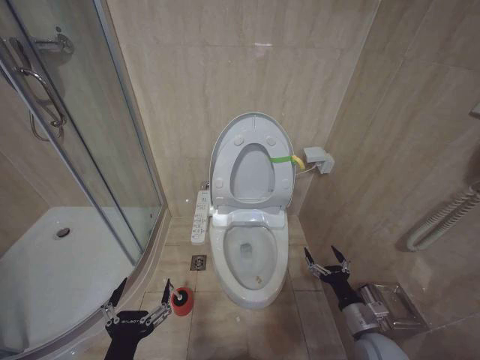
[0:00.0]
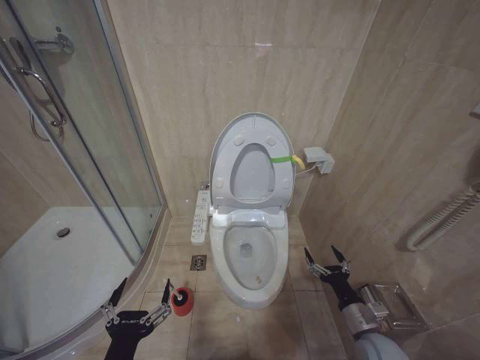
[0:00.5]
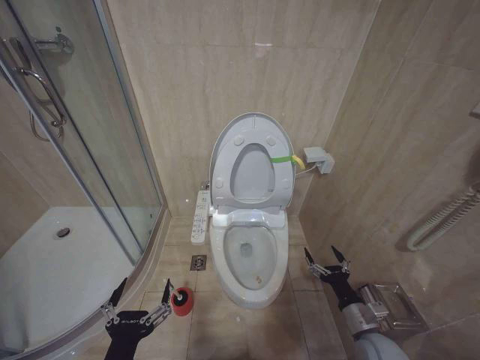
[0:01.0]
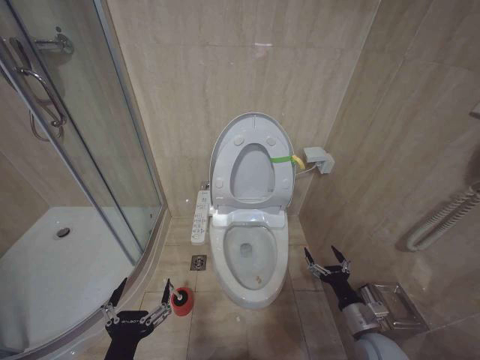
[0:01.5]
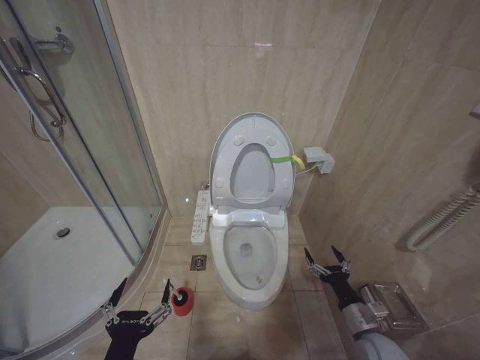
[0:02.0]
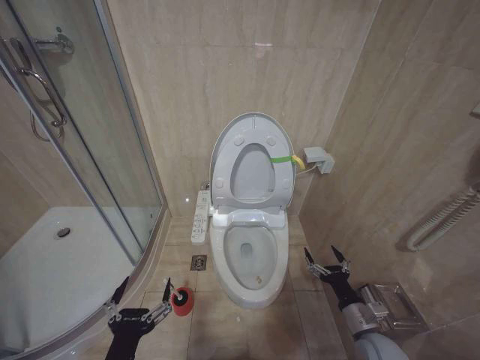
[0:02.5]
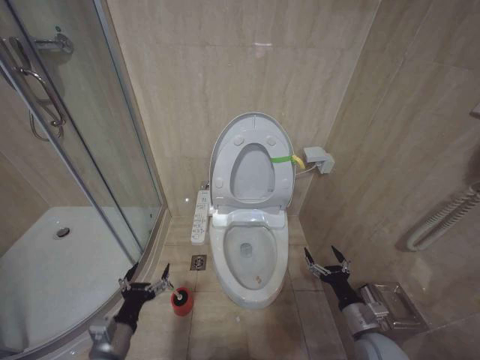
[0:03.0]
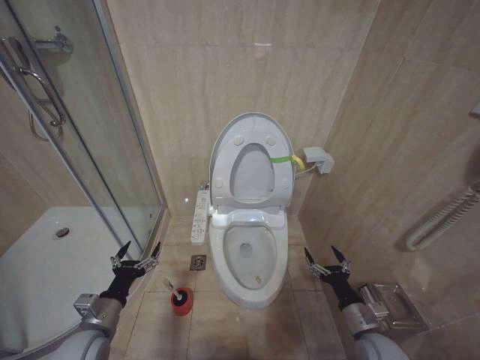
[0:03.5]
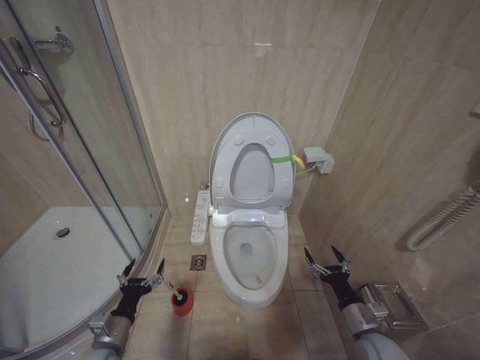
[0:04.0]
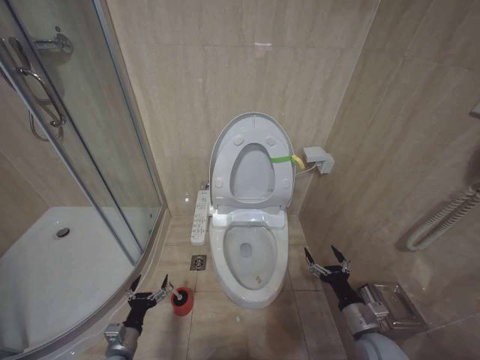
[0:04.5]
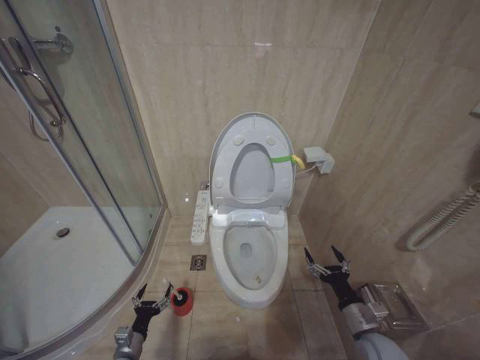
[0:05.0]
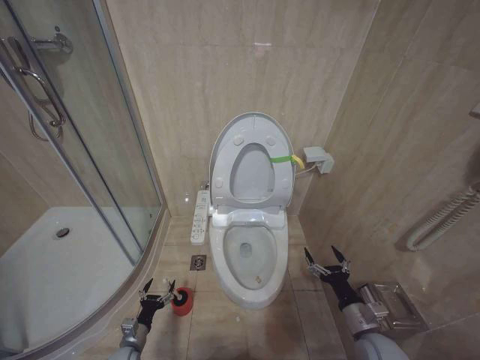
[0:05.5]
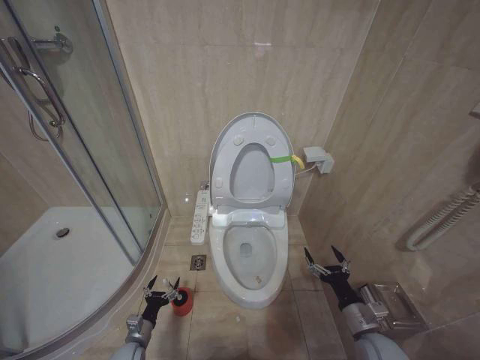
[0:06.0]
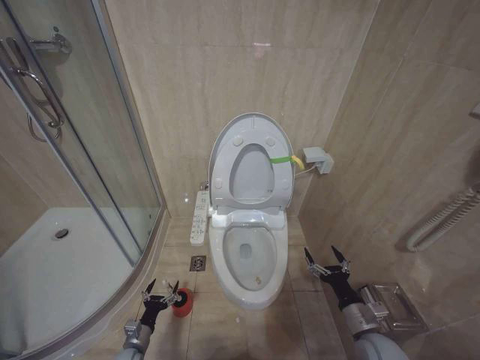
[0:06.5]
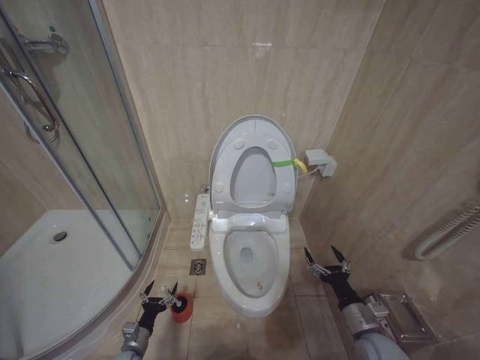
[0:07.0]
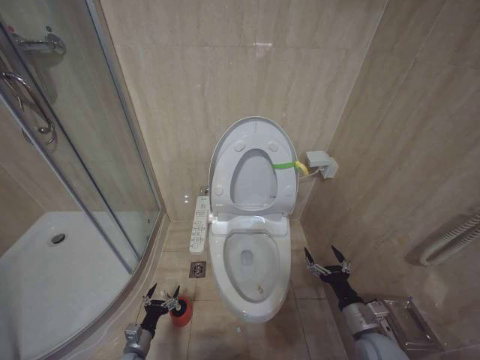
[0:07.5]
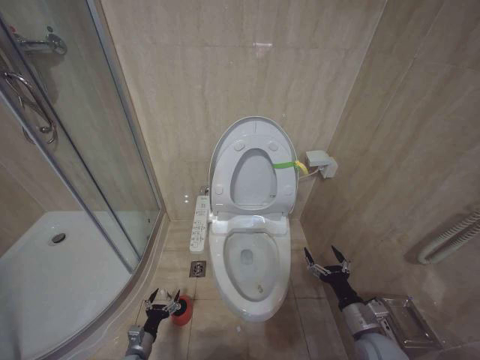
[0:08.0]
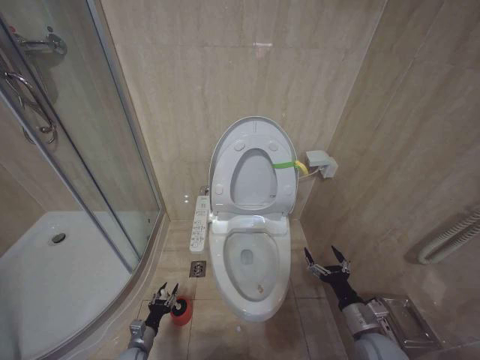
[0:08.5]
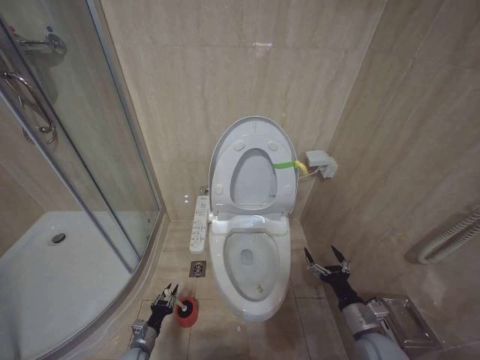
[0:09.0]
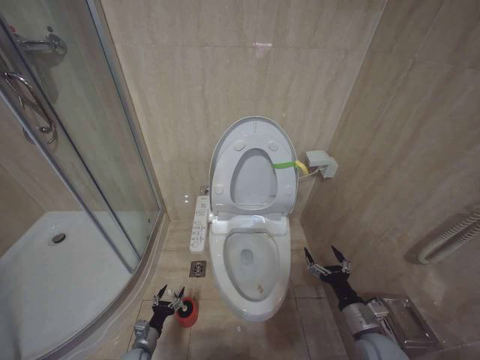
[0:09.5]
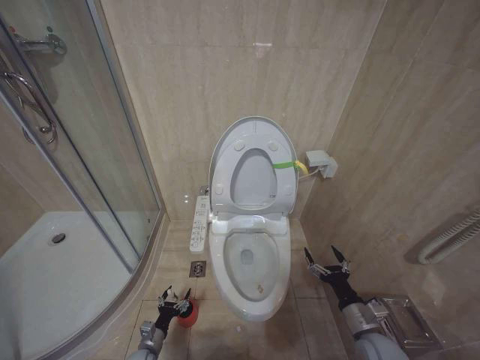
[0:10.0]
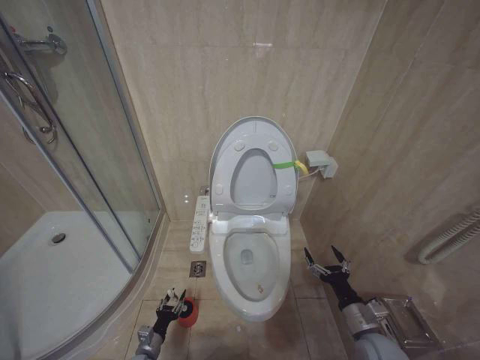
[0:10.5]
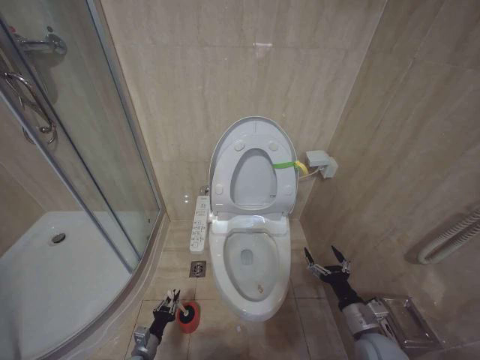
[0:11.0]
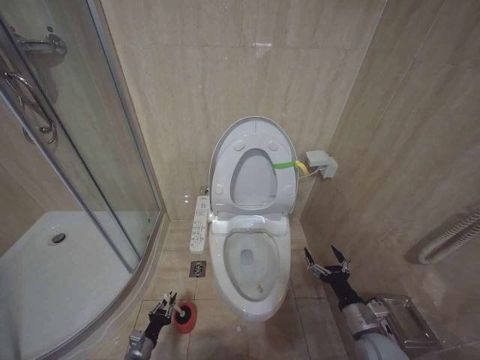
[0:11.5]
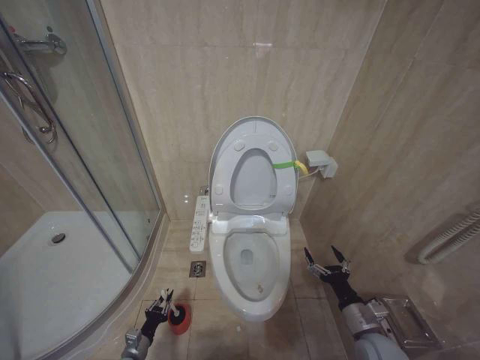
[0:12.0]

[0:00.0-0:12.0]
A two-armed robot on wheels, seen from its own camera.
Task of the whole recording: Open the toilet lid, clean the toilet bowl with a toilet brush, close the toilet lid, and flush.
0.0 to 2.0 s: The two grippers keep their place.
2.0 to 4.0 s: The left gripper travels forward, downward and to the left by some 20 cm.
4.0 to 6.0 s: The left gripper shifts some 20 cm downward.
6.0 to 8.0 s: The grippers move only a little.
8.0 to 10.0 s: The left gripper closes and opens again.
10.0 to 12.0 s: The left gripper closes up.

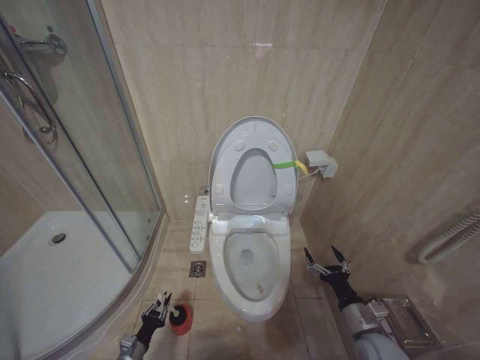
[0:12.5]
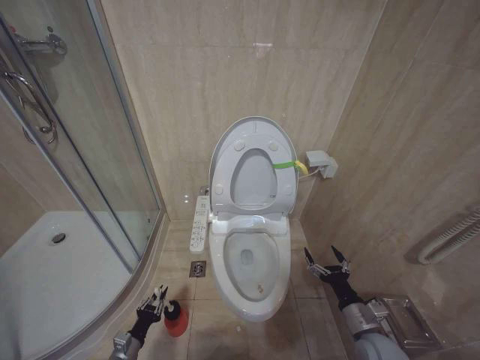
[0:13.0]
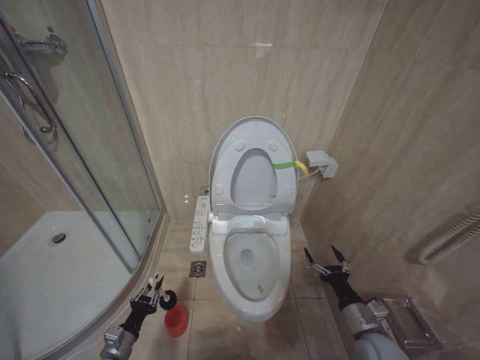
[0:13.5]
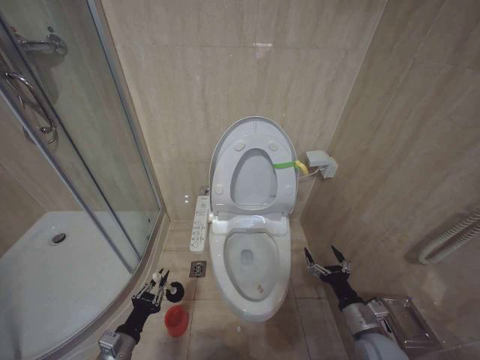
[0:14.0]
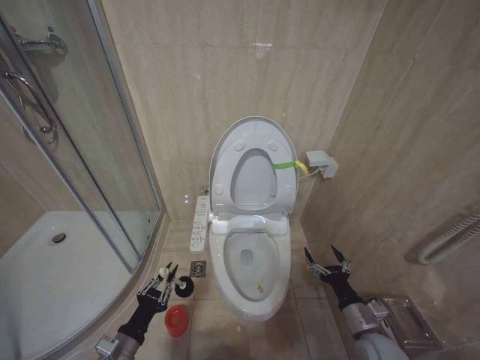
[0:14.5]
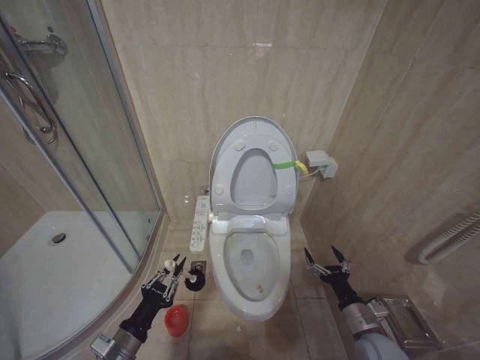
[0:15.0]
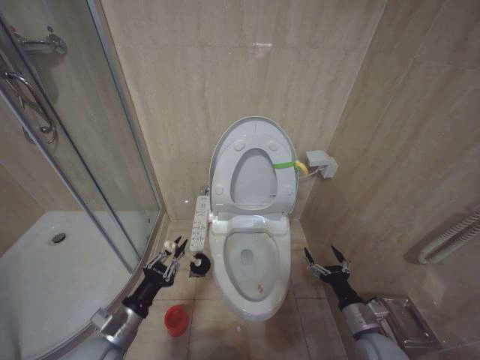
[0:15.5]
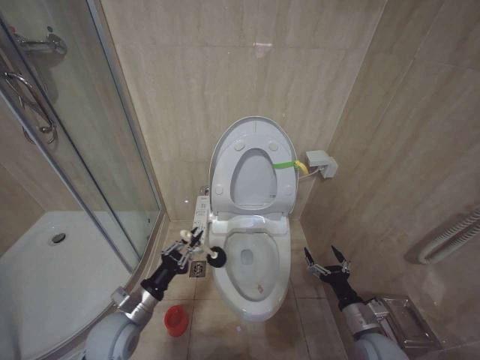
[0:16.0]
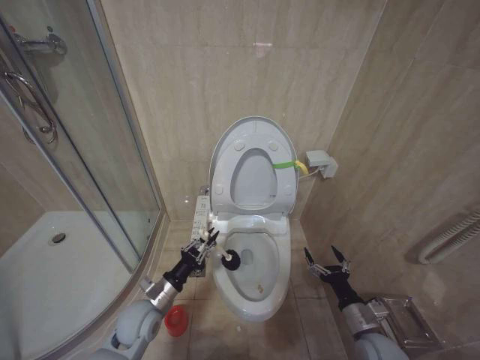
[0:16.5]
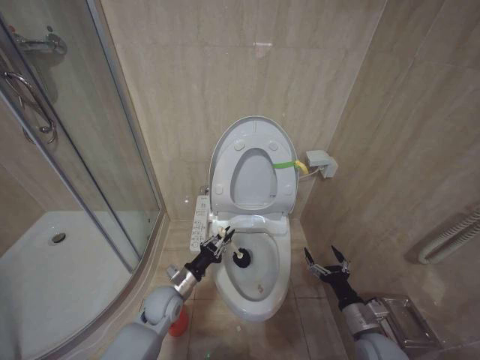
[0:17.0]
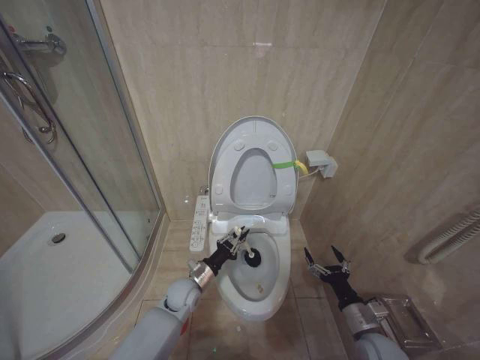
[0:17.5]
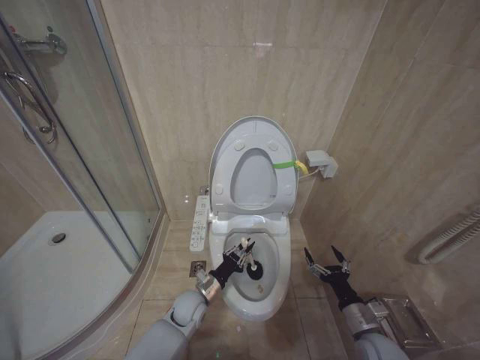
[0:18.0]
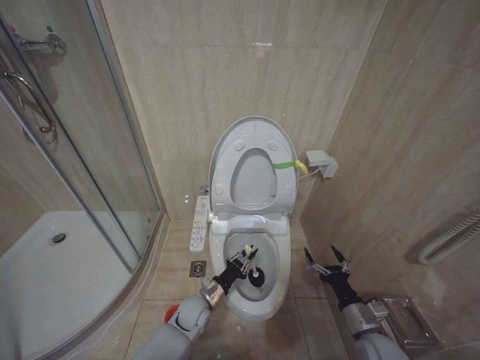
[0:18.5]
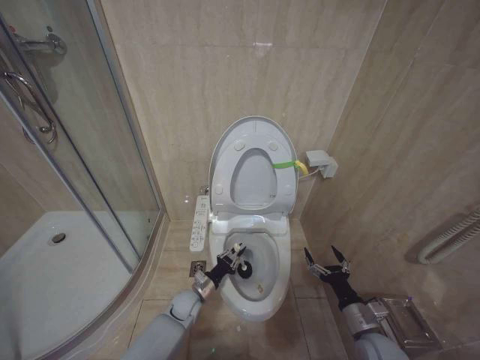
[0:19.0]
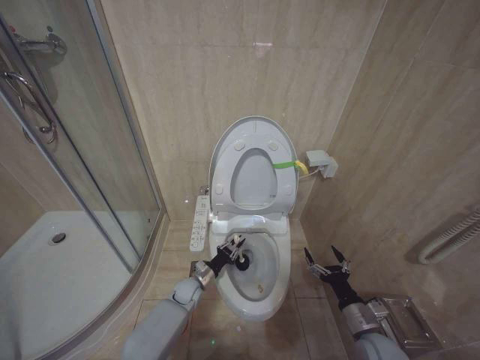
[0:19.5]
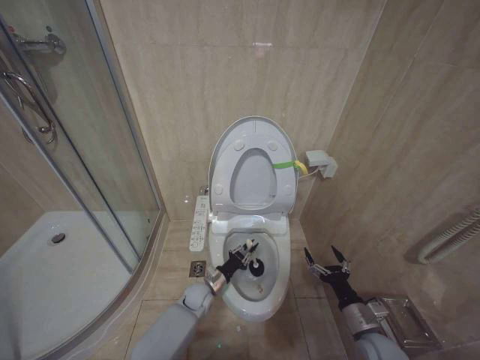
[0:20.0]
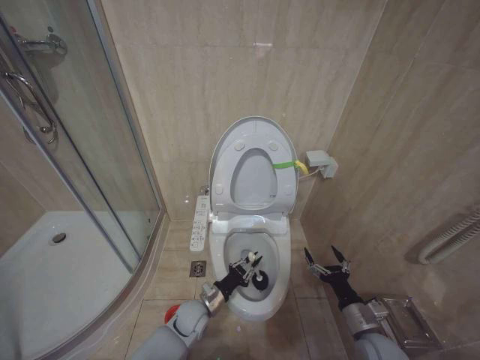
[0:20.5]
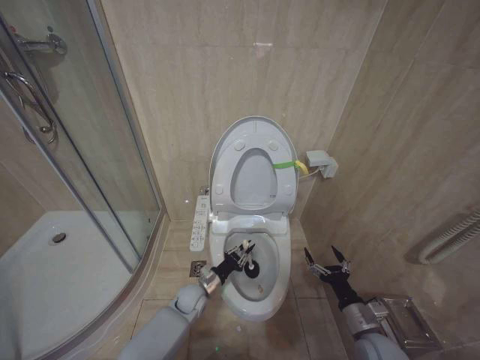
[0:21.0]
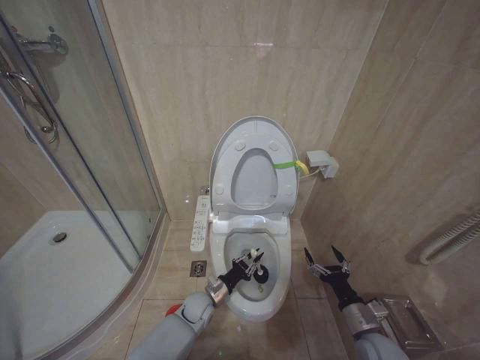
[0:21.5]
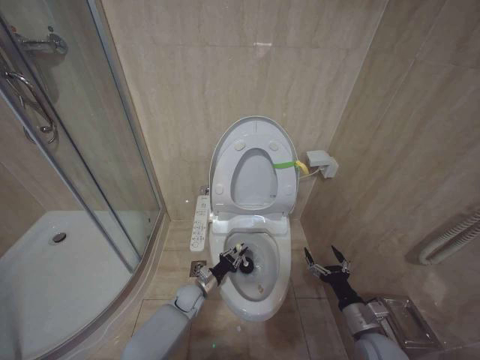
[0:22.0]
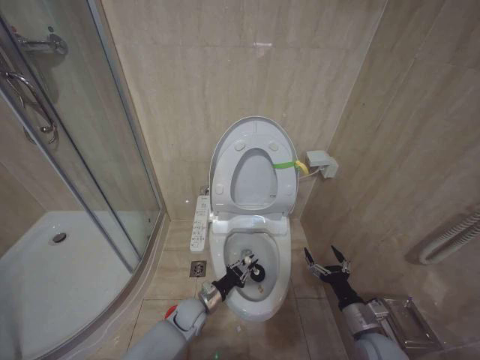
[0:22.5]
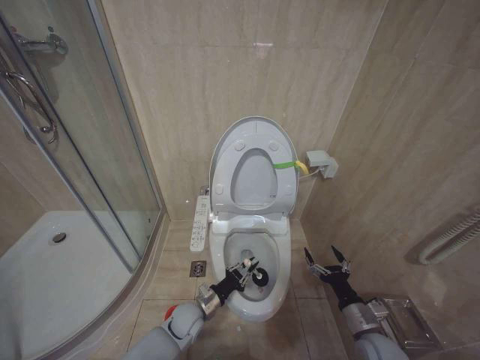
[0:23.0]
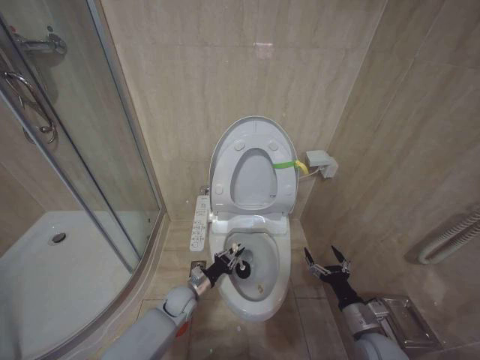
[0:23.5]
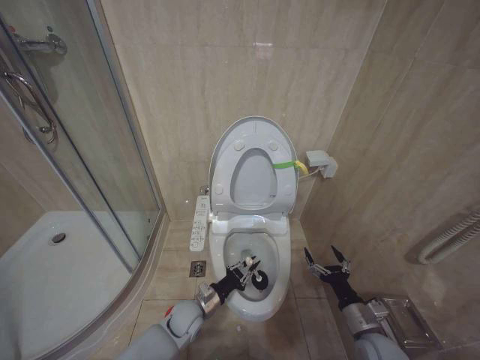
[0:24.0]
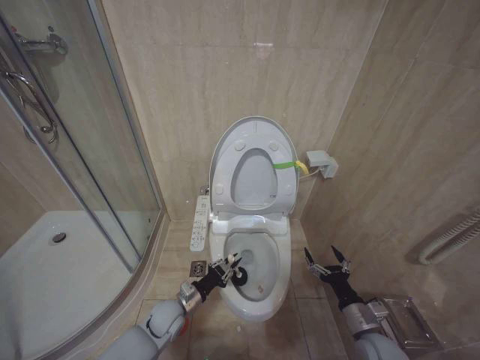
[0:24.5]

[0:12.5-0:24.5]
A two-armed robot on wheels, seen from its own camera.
Task of the whole recording: Open the toilet lid, clean the toilet bowl with a toilet brush, close the toilet lid, and flush.
12.5 to 14.5 s: The left gripper heads upward, covering some 20 cm.
14.5 to 16.5 s: The left gripper travels forward and to the right by about 15 cm.
16.5 to 18.5 s: The left gripper moves to the right, downward and forward, some 15 cm.
18.5 to 20.5 s: The left gripper reaches roughly 5 cm forward, then returns.
22.5 to 24.5 s: The left gripper moves to the left, some 5 cm.

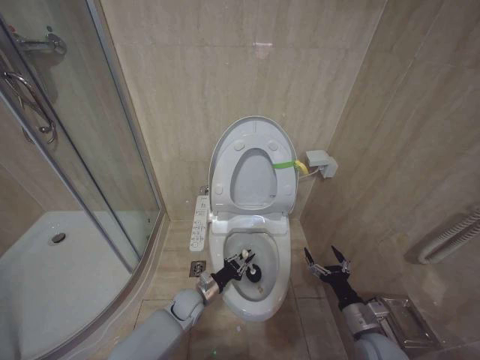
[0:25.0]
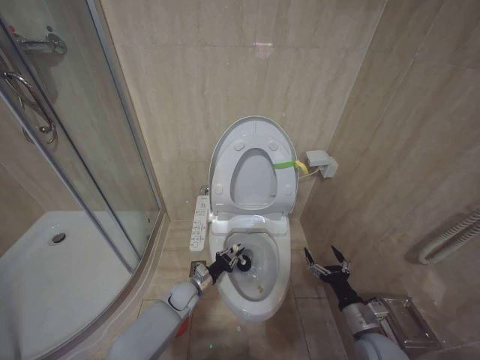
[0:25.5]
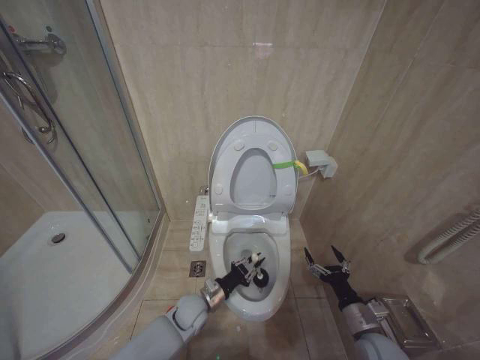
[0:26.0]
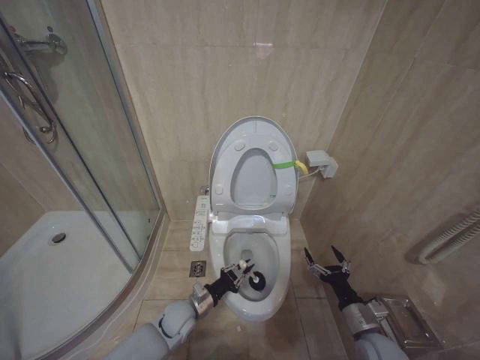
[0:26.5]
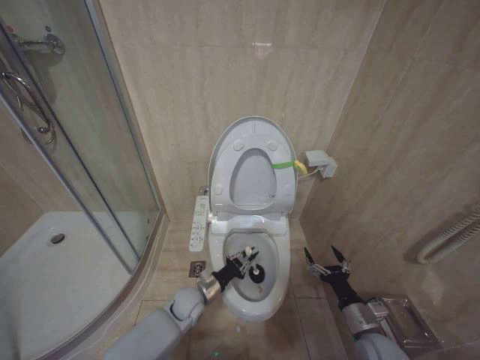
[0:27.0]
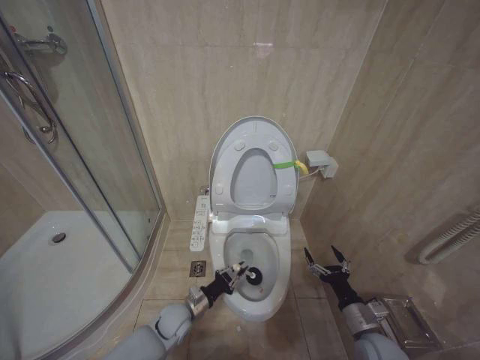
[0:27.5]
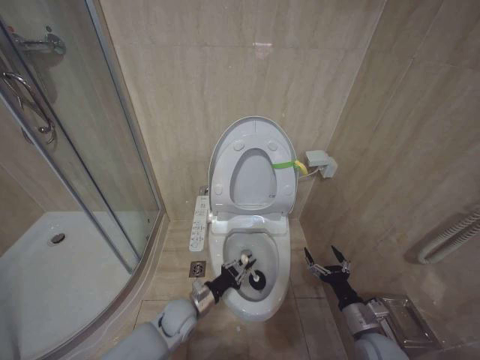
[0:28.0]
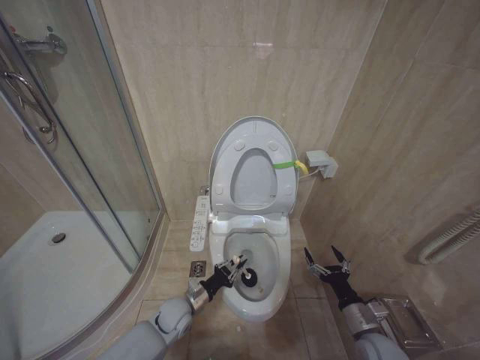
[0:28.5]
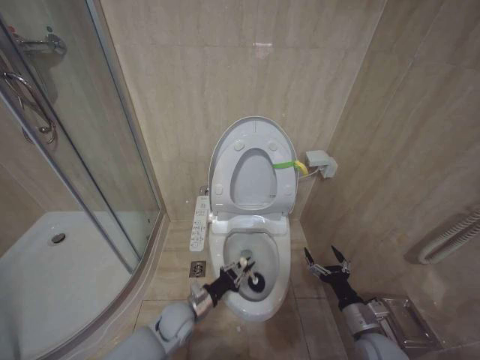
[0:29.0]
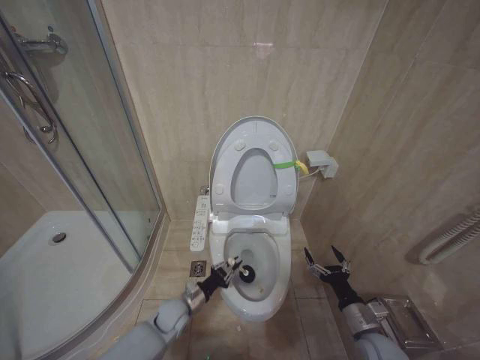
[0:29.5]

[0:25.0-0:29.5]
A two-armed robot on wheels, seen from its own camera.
Task of the whole recording: Open the toilet lid, clean the toilet bowl with a toilet brush, close the toilet lid, and flush.
25.0 to 27.0 s: The left gripper goes backward and returns, about 5 cm each way.
27.0 to 29.5 s: The left gripper moves roughly 5 cm.
